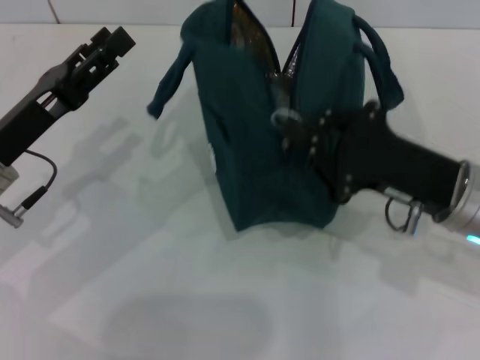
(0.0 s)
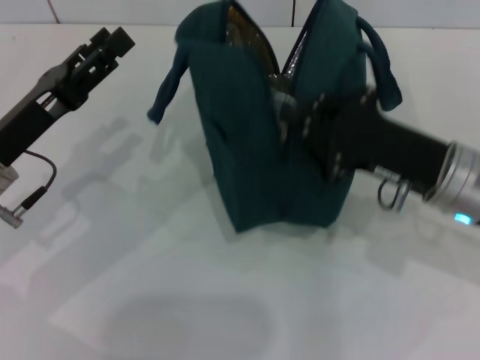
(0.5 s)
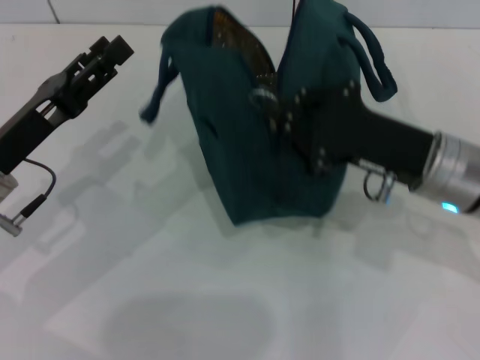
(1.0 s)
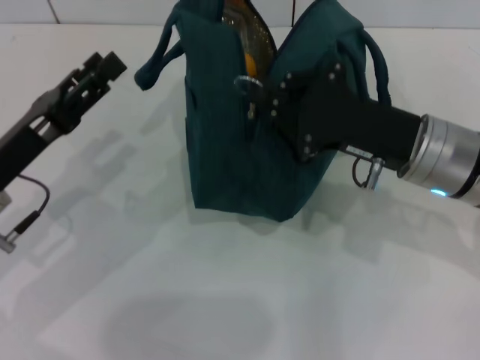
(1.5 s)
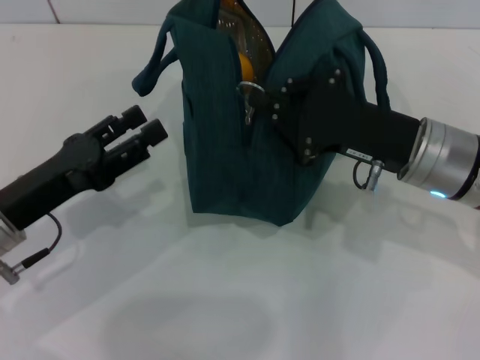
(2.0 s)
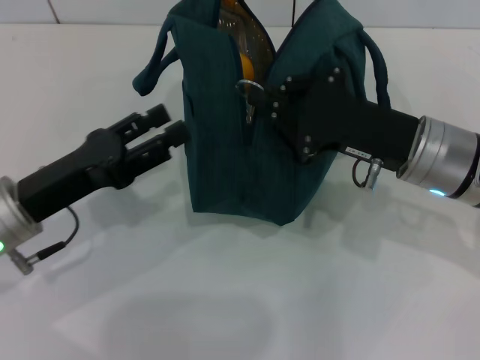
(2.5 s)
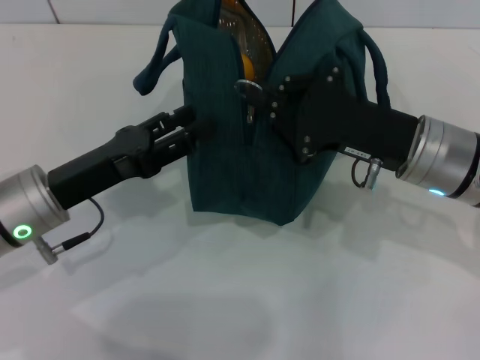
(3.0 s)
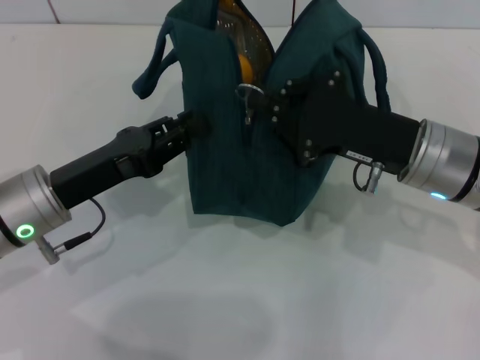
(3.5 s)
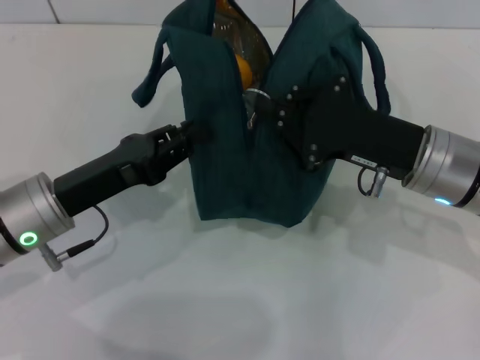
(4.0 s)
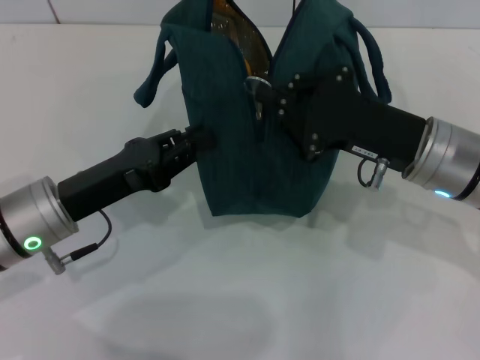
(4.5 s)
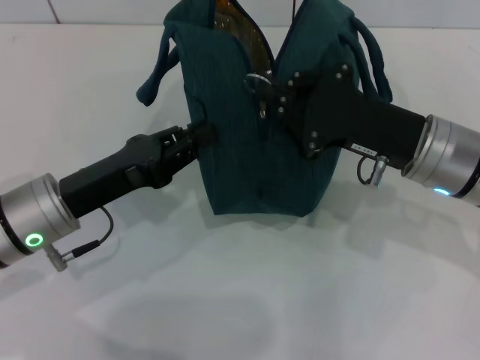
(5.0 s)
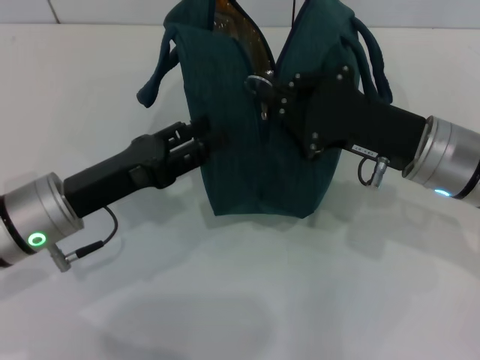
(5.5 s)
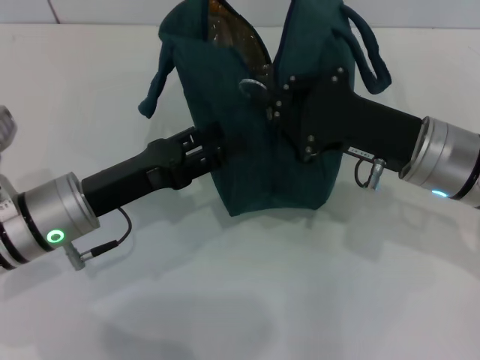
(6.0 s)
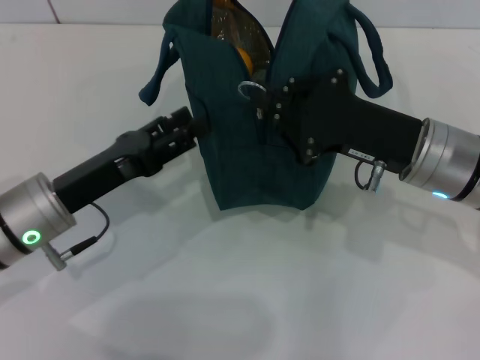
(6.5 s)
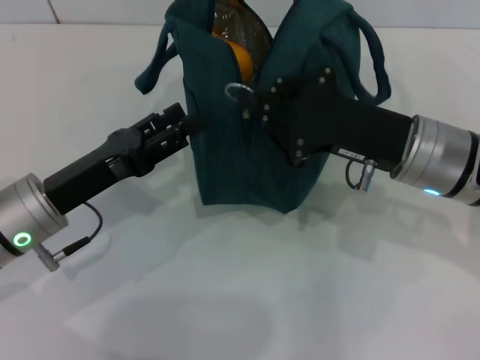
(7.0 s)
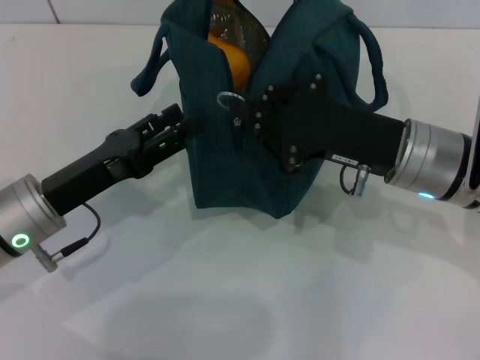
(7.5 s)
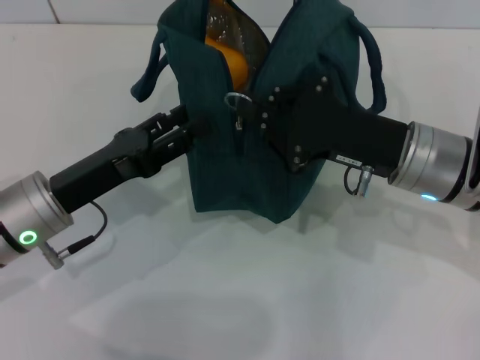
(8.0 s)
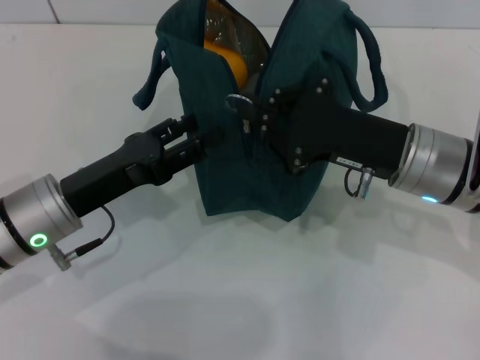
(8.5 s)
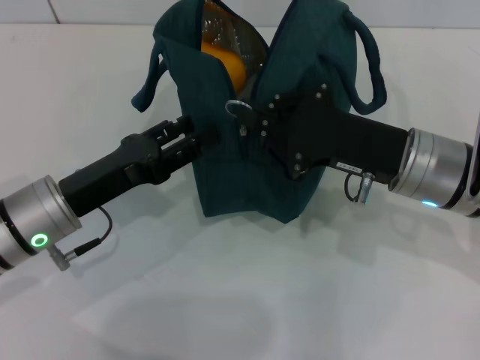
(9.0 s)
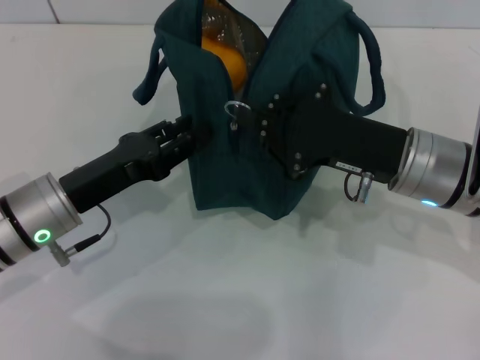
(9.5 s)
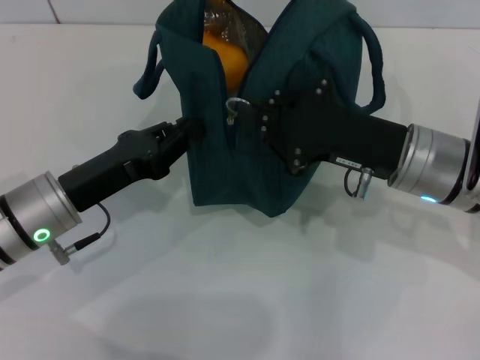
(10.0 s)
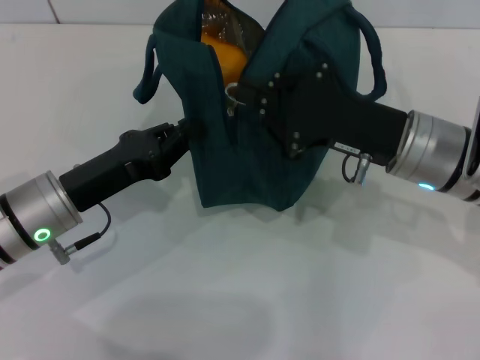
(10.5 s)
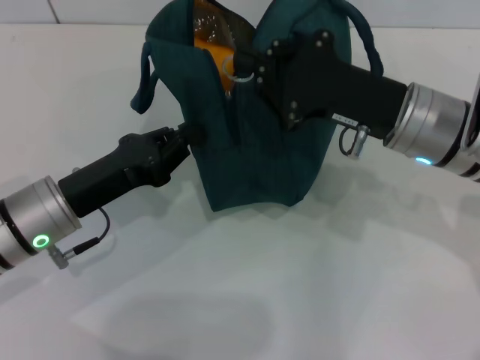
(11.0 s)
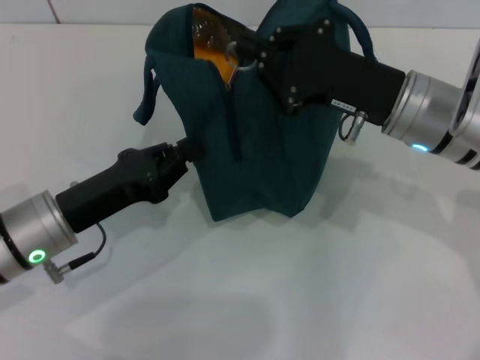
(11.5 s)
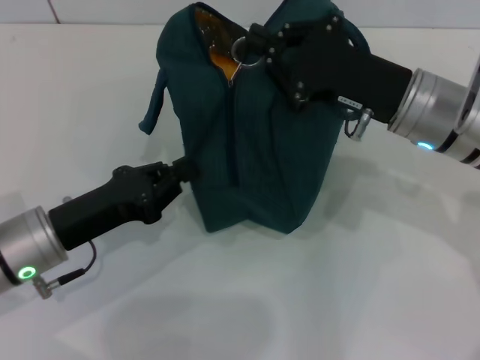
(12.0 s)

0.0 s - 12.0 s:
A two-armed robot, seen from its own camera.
2.0 s - 4.0 s: The left gripper closes.
4.0 s - 6.0 s: The left gripper opens.
6.0 s - 8.0 s: The grippers stay close to where they were, moving slightly.
8.0 s - 10.0 s: The left gripper closes up.

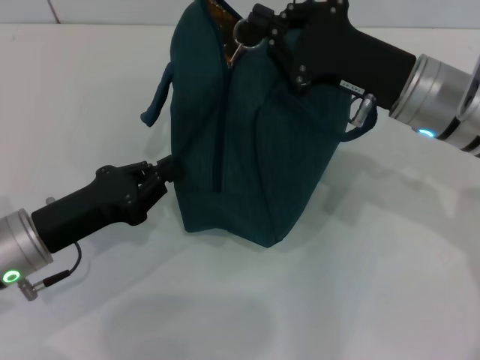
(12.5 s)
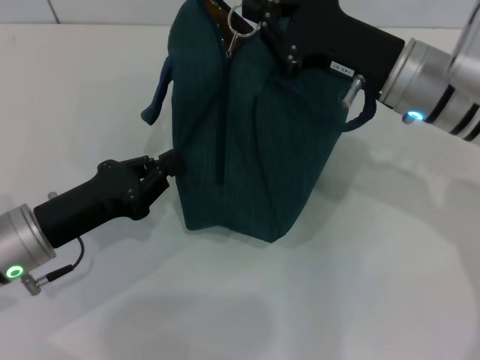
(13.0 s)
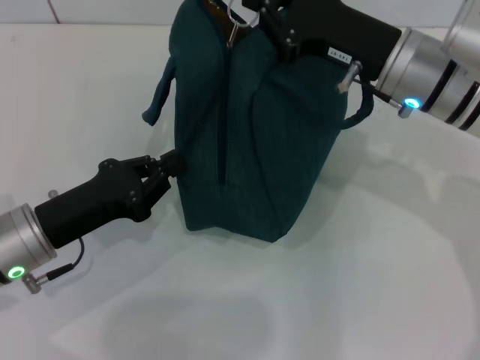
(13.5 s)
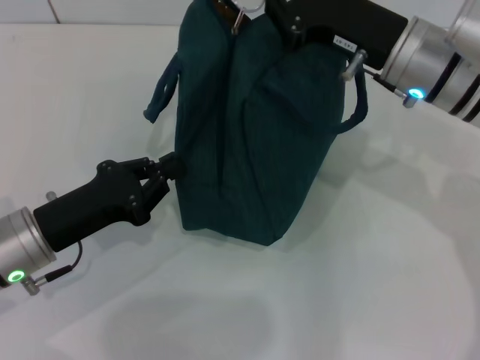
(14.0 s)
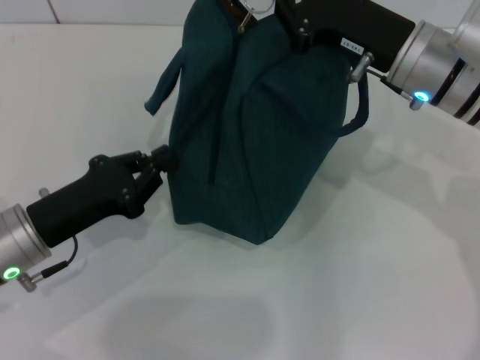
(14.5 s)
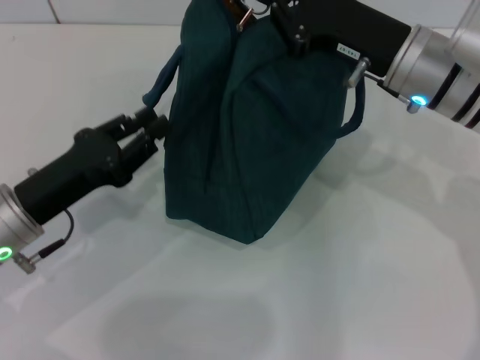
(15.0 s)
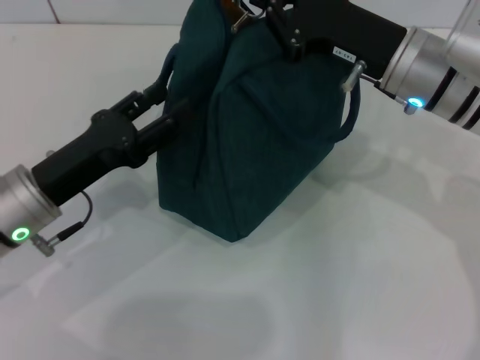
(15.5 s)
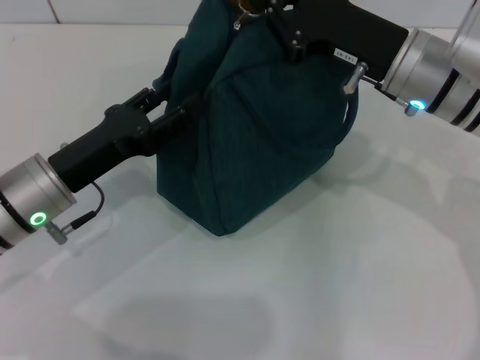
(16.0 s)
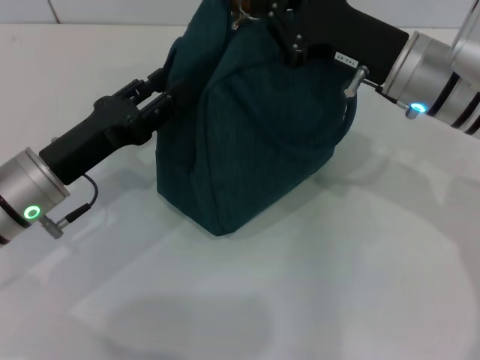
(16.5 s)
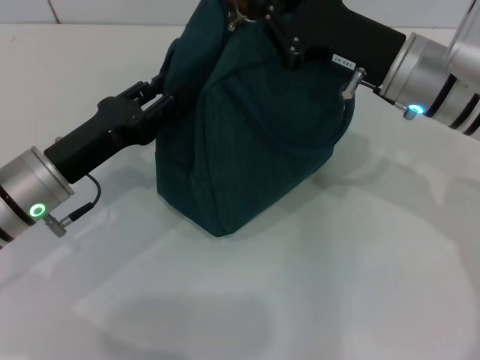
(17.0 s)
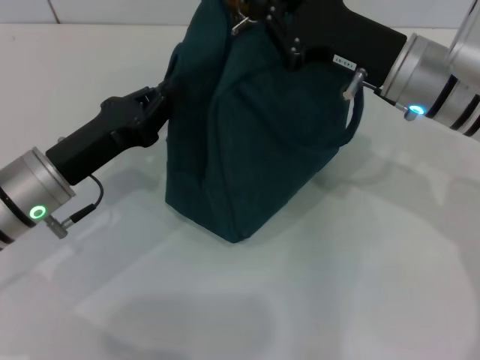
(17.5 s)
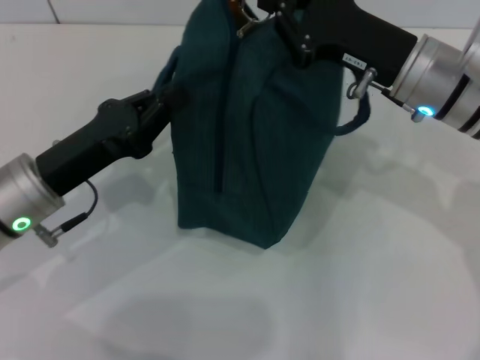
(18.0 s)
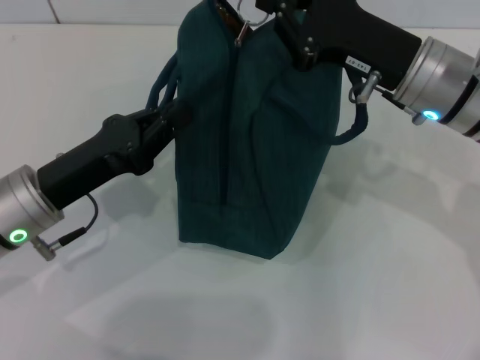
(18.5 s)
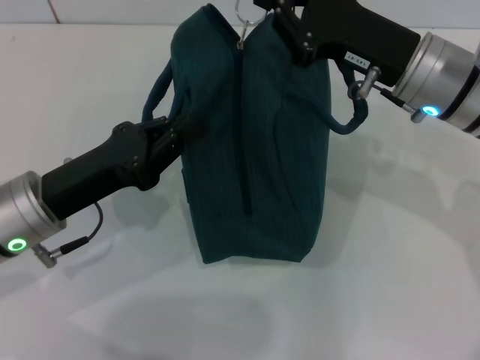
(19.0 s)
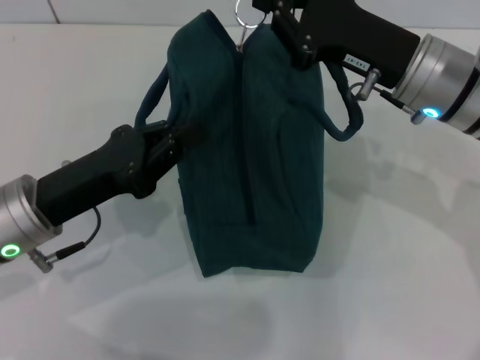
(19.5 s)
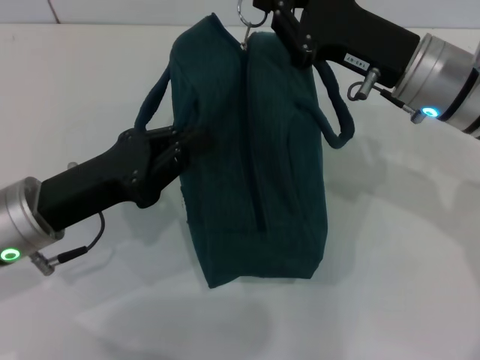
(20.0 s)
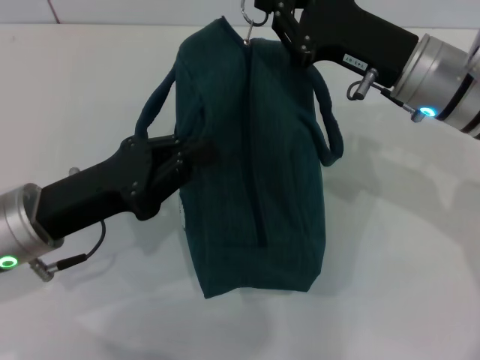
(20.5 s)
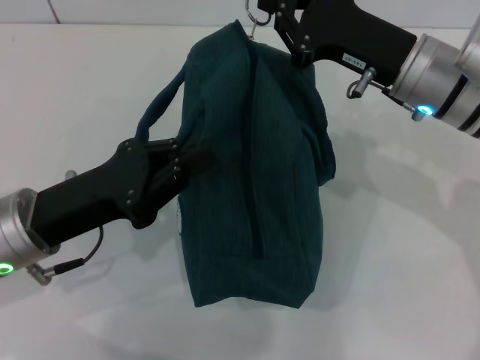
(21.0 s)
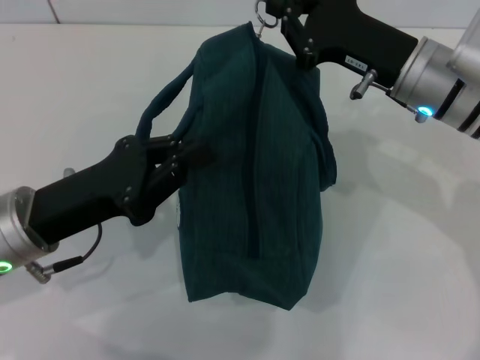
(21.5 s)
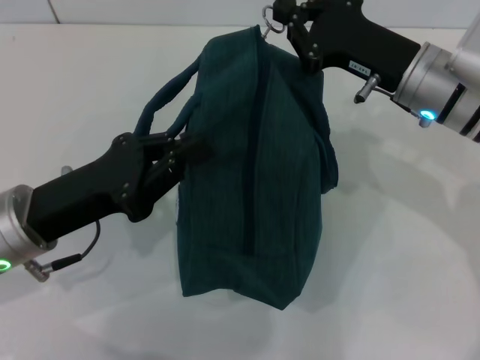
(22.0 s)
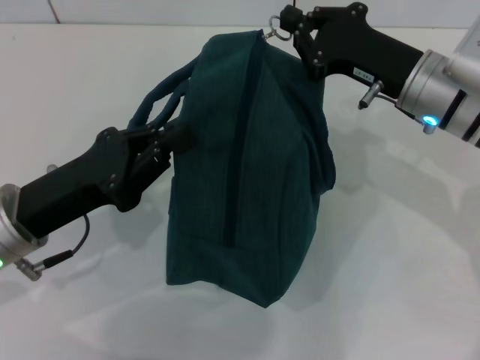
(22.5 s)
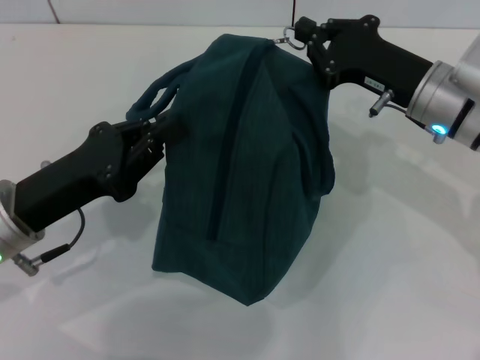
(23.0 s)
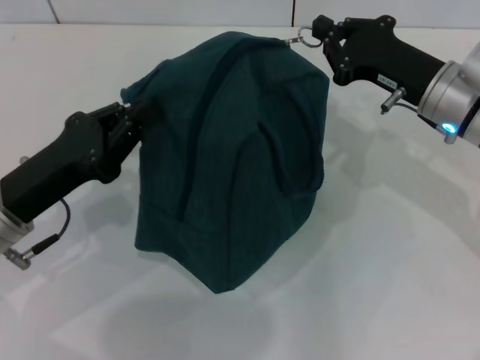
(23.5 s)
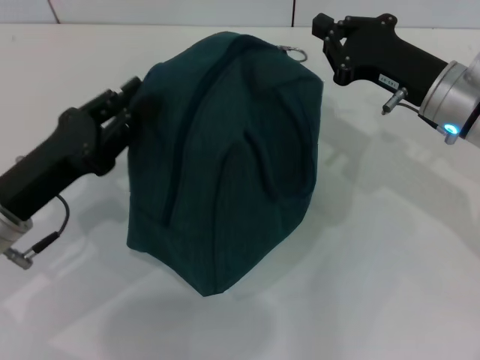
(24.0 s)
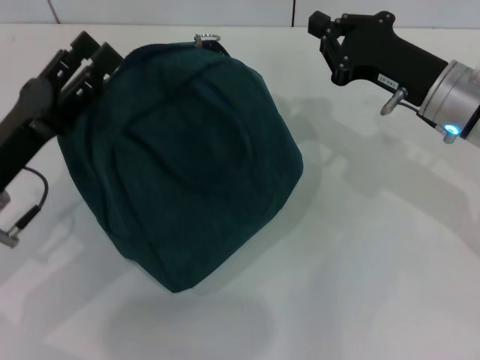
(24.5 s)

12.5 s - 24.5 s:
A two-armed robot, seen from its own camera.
12.5 s - 14.5 s: The grippers stay close to where they were, moving slightly.
14.5 s - 16.5 s: The left gripper opens.
16.5 s - 18.5 s: The left gripper closes up.
18.5 s - 22.5 s: The grippers stay close to where they were, moving slightly.
22.5 s - 24.5 s: The left gripper opens its fingers.

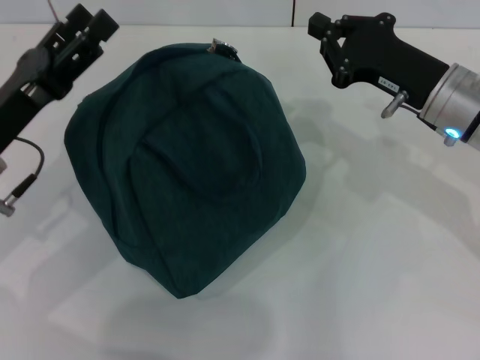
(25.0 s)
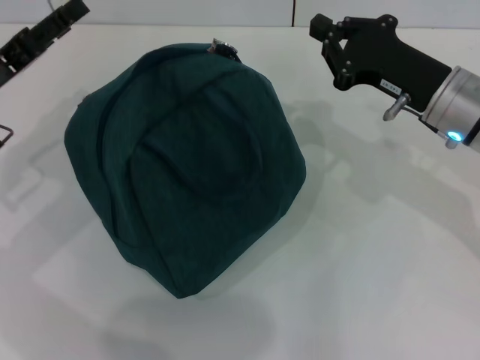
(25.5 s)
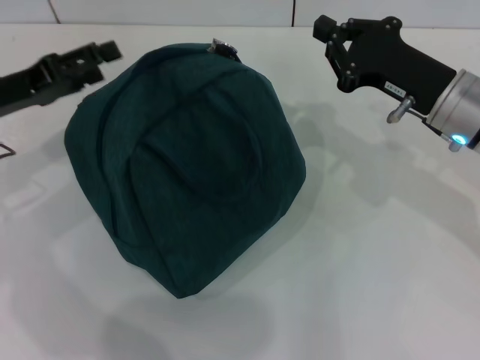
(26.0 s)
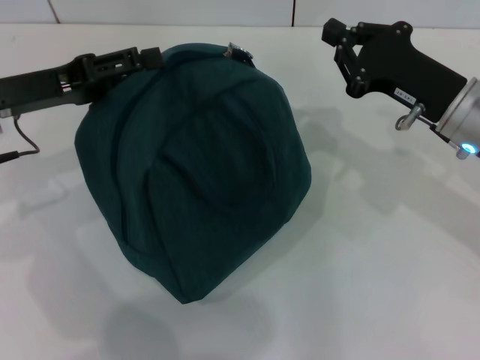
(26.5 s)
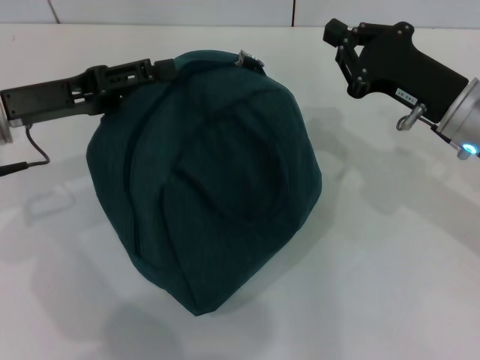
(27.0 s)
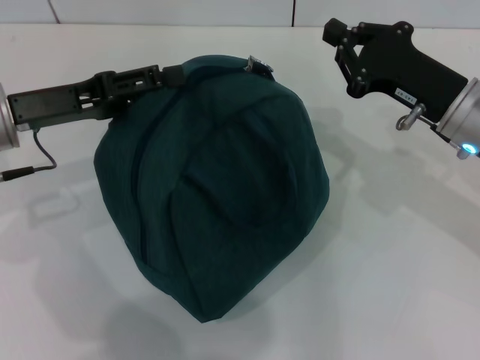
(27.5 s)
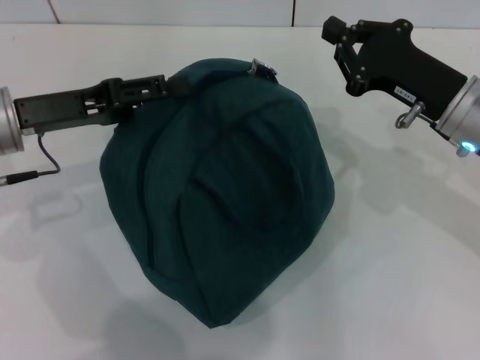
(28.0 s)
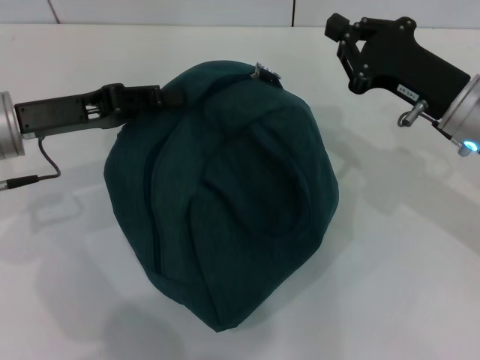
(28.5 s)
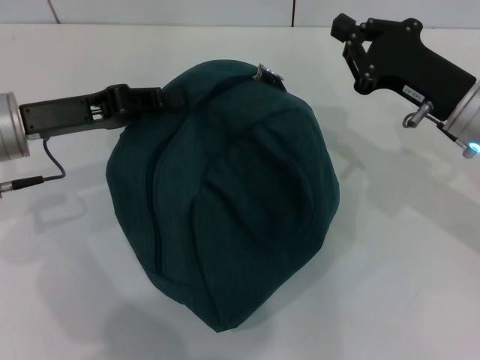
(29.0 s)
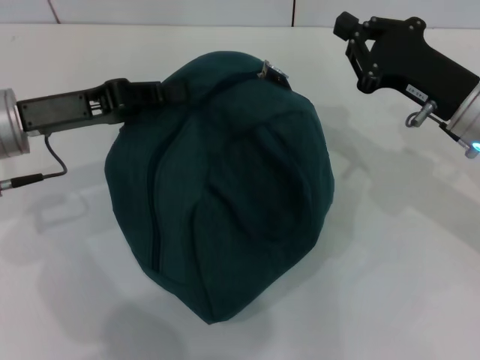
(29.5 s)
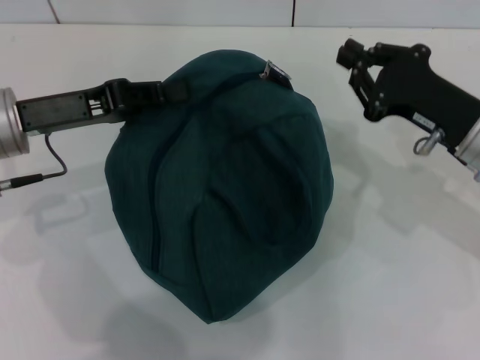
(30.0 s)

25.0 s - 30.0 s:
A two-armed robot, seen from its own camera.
25.0 s - 27.5 s: The left gripper moves forward, some 5 cm.
27.5 s - 30.0 s: The left gripper closes.
